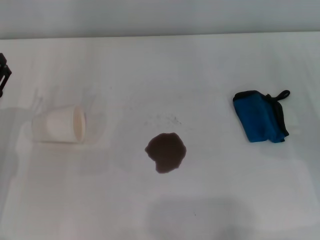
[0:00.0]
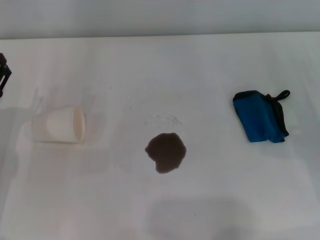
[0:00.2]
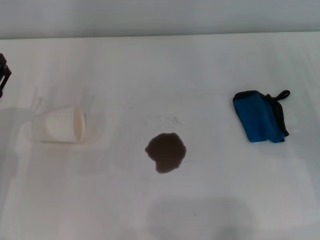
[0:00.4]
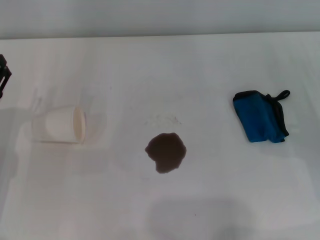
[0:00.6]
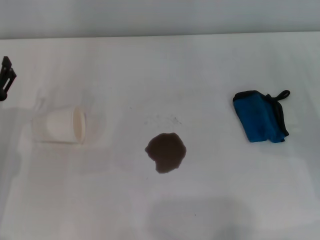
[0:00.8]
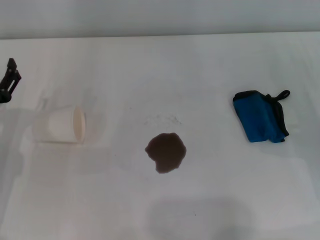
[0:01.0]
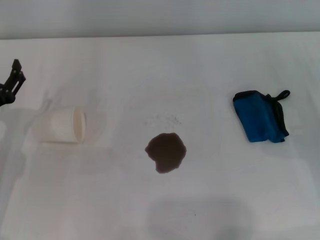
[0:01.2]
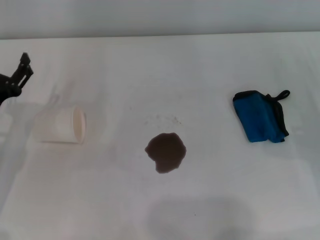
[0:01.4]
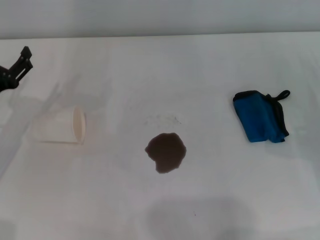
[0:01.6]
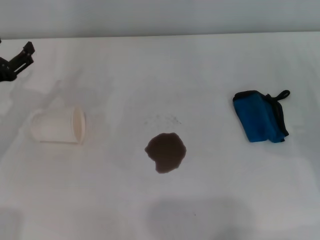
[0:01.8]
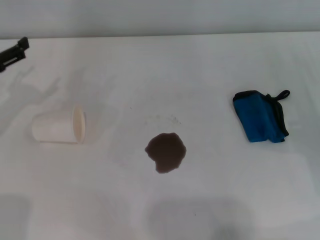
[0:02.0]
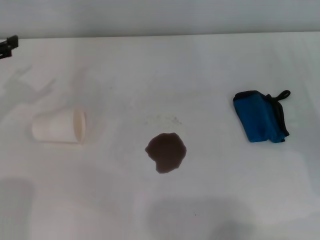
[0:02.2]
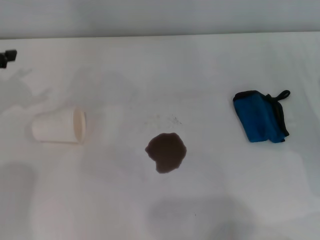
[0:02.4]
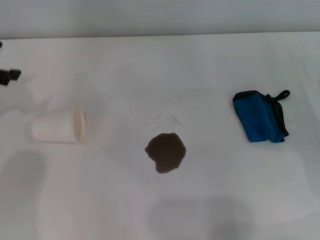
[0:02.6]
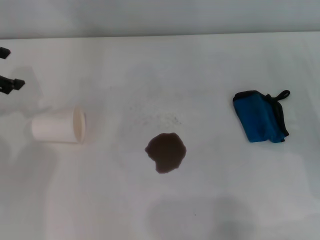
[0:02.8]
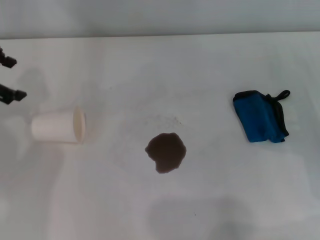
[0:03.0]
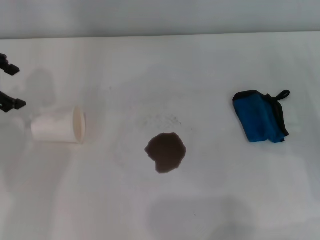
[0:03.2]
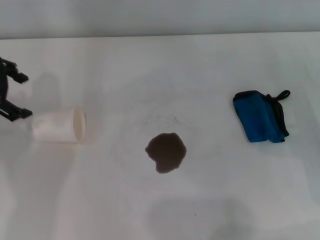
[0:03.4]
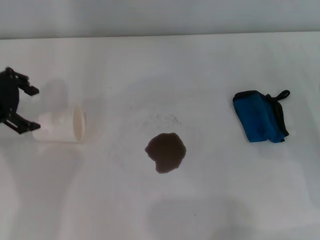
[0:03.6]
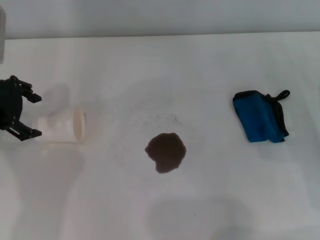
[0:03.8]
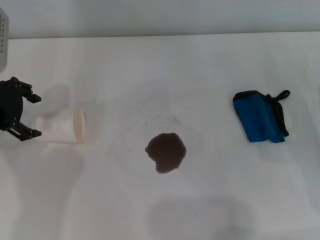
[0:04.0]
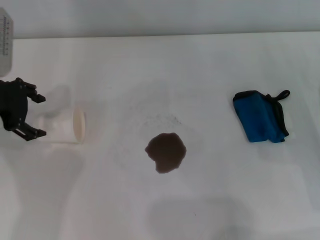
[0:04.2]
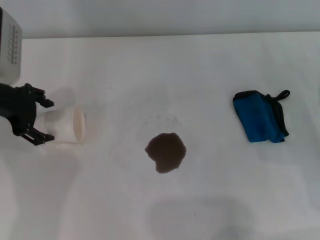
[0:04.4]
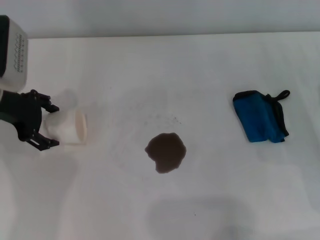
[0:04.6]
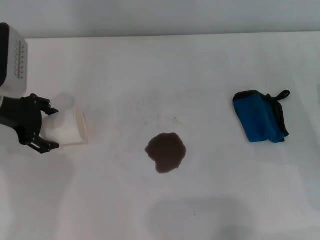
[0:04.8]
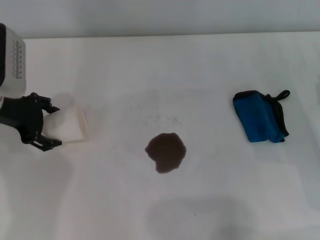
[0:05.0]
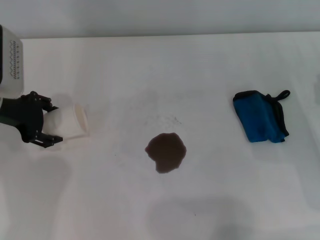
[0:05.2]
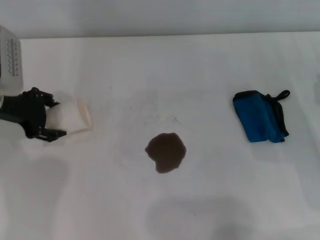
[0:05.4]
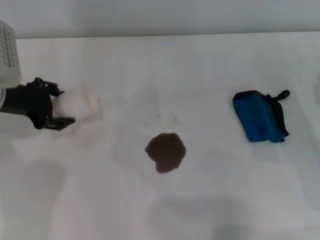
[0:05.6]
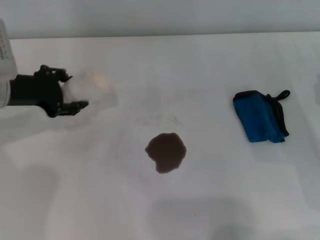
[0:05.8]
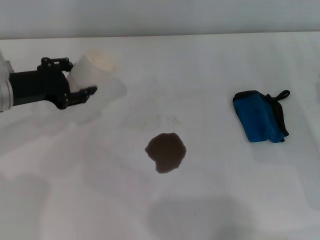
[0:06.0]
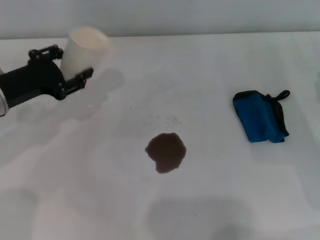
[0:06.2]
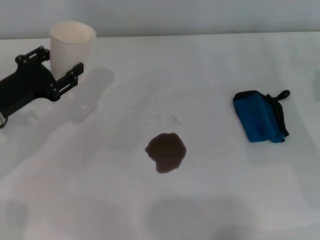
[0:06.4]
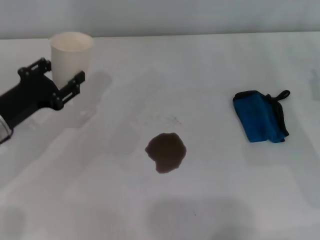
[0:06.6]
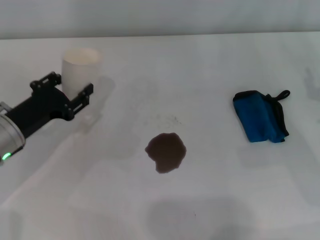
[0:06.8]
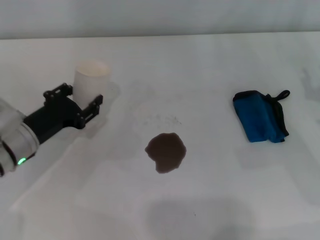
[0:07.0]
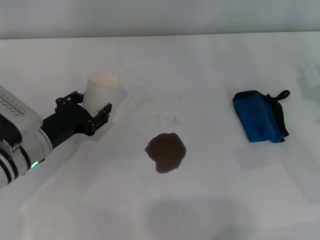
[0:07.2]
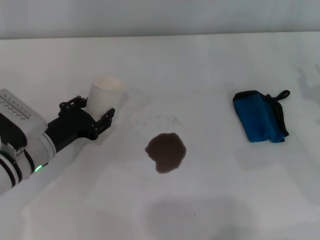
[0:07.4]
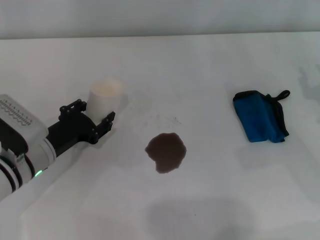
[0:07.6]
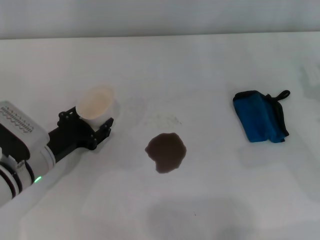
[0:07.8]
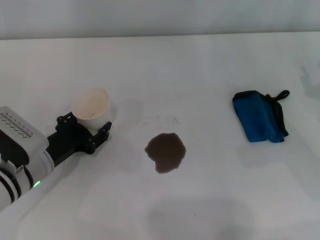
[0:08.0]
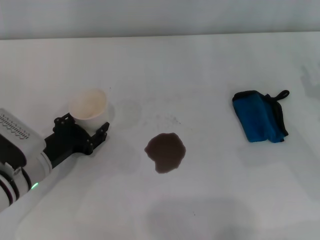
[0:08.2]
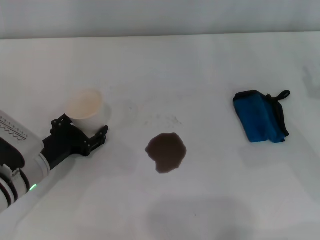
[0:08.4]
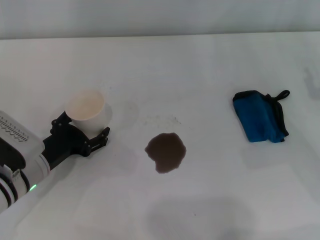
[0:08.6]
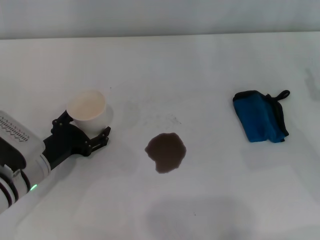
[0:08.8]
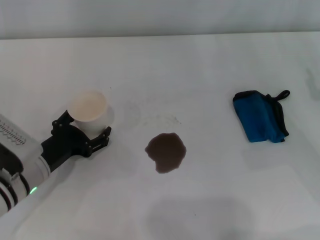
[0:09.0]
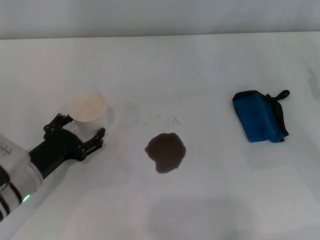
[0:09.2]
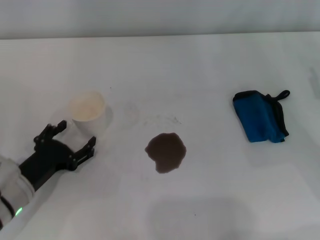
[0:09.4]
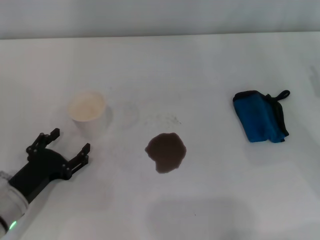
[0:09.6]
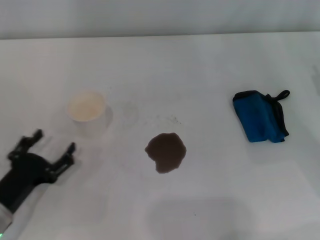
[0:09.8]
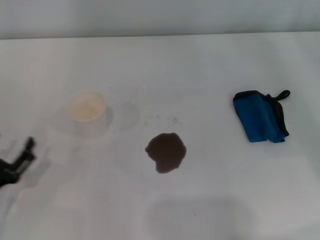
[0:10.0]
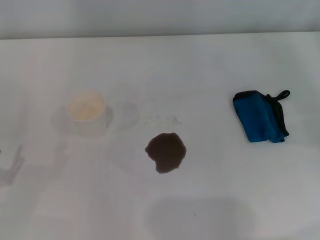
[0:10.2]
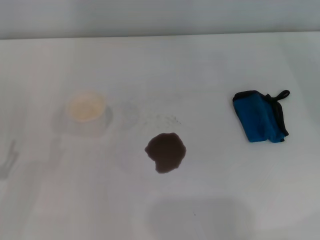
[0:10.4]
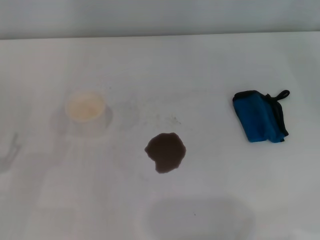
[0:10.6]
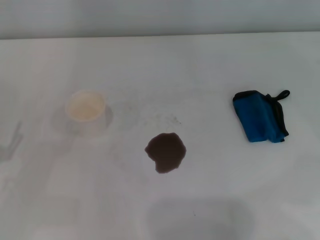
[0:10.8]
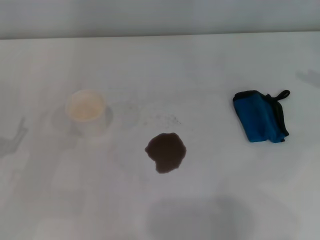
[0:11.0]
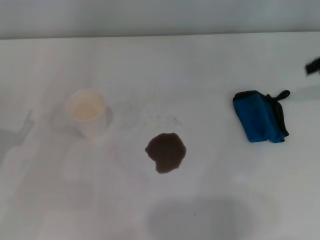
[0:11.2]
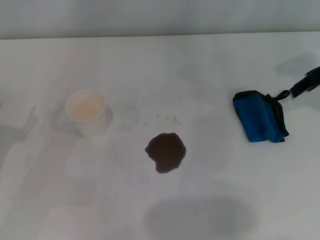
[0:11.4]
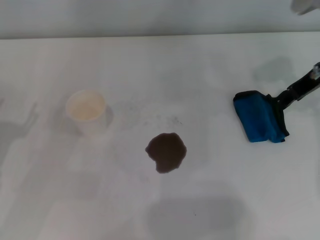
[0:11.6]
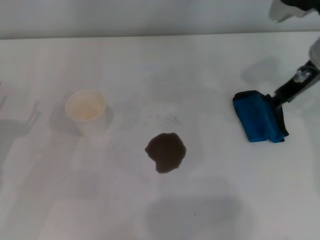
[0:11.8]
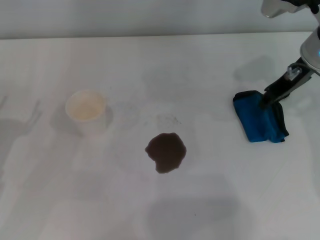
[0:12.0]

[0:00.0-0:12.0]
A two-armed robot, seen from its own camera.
Step, 0:00.0 to 0:05.2: Grasp the paper cup with the left gripper.
Step, 0:05.4 to 0:08.8: Stand the paper cup upright with the left gripper.
0:00.0 to 0:01.6: The grippers move only a little.
0:01.6 to 0:03.0: The left gripper shifts roughly 20 cm upward and forward.
0:03.0 to 0:04.4: The left gripper heads downward and to the right, covering roughly 10 cm.
0:04.4 to 0:06.0: The left gripper closes its fingers.
0:06.0 to 0:07.6: The left gripper travels downward and backward by roughly 10 cm.
0:07.6 to 0:09.0: The left gripper opens up.
0:09.0 to 0:10.4: The left gripper is displaced to the left and backward by some 15 cm.
0:10.4 to 0:12.0: The right gripper shifts approximately 25 cm to the left and forward.

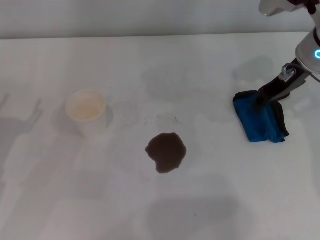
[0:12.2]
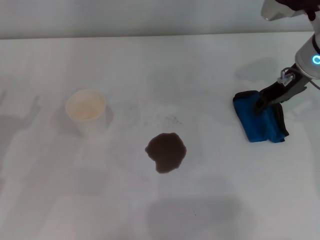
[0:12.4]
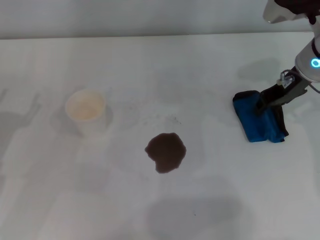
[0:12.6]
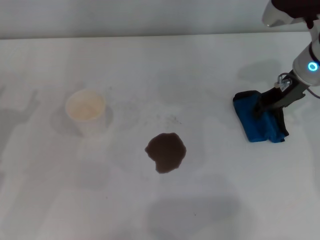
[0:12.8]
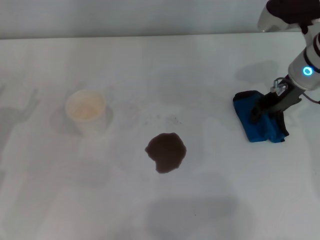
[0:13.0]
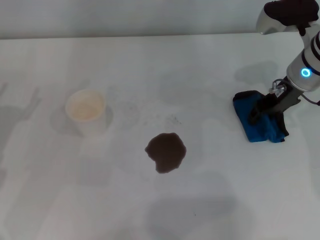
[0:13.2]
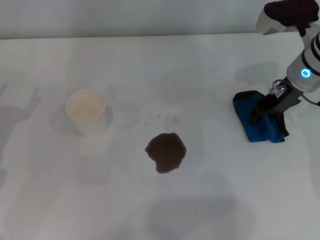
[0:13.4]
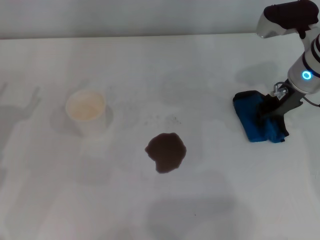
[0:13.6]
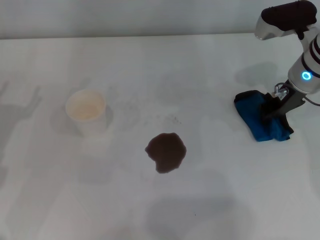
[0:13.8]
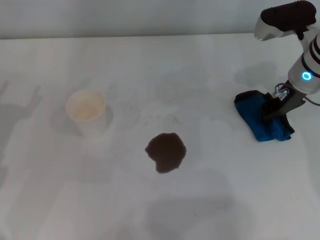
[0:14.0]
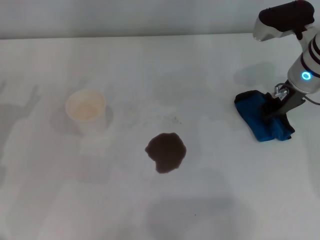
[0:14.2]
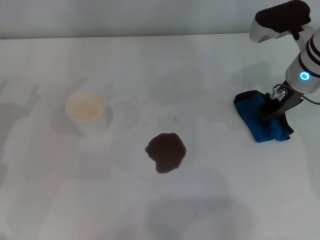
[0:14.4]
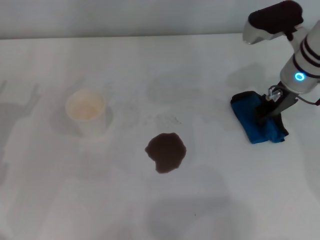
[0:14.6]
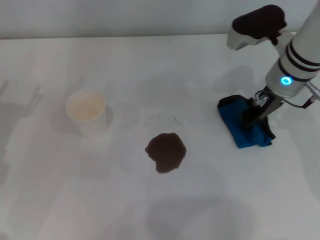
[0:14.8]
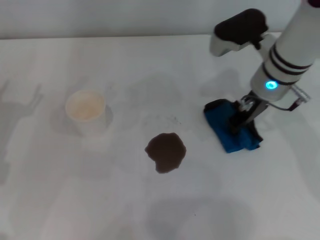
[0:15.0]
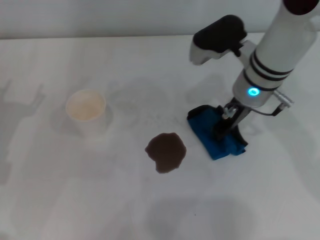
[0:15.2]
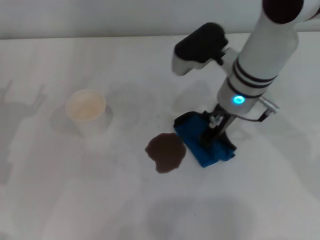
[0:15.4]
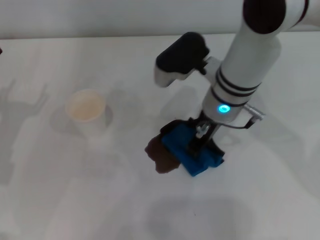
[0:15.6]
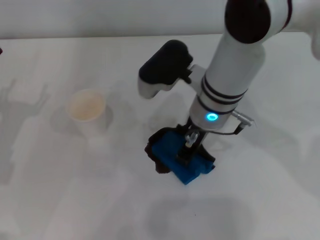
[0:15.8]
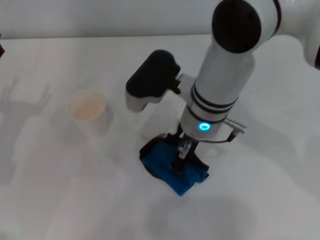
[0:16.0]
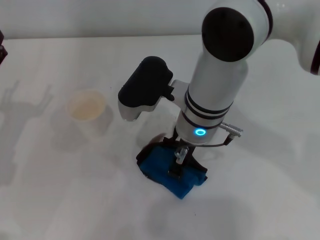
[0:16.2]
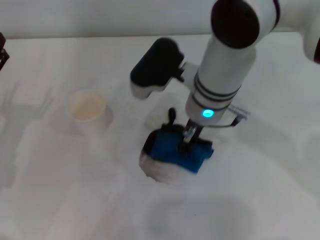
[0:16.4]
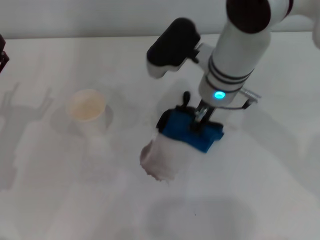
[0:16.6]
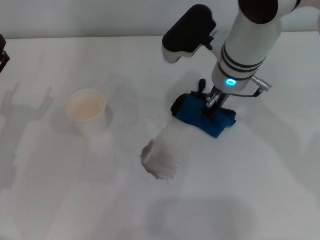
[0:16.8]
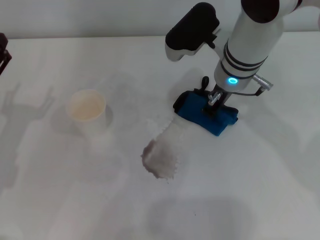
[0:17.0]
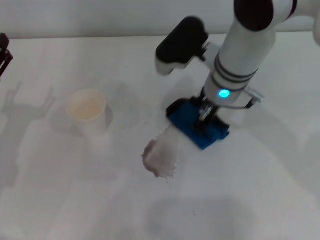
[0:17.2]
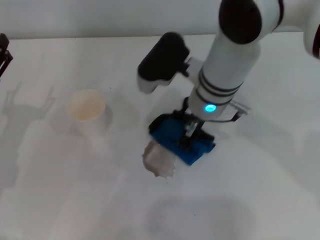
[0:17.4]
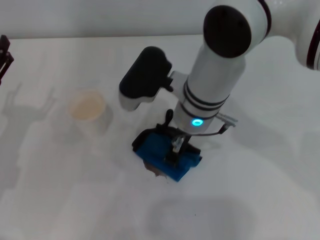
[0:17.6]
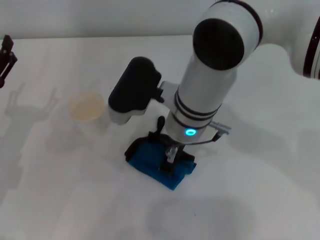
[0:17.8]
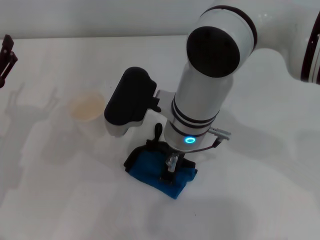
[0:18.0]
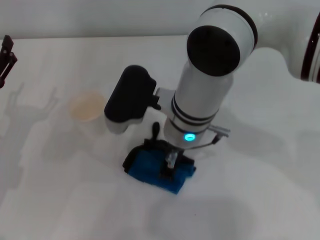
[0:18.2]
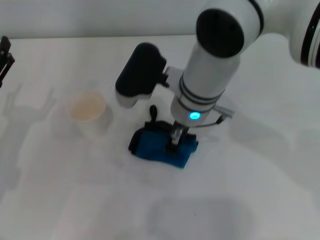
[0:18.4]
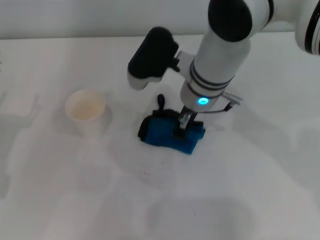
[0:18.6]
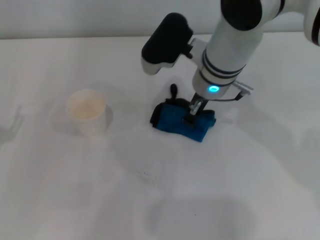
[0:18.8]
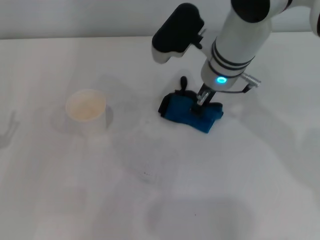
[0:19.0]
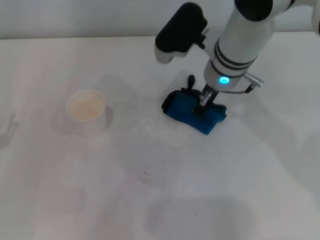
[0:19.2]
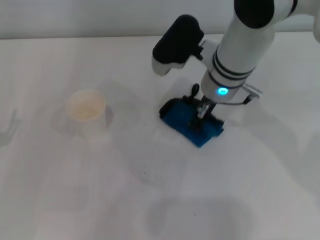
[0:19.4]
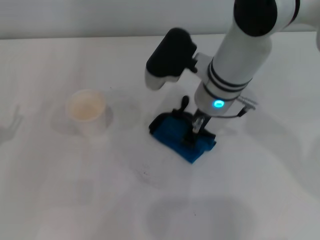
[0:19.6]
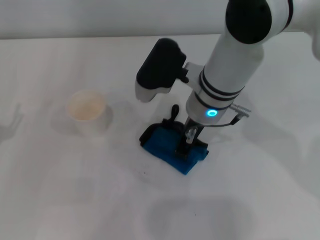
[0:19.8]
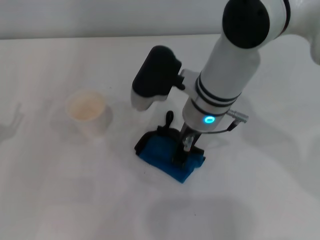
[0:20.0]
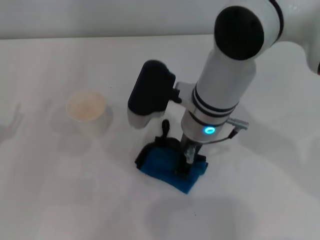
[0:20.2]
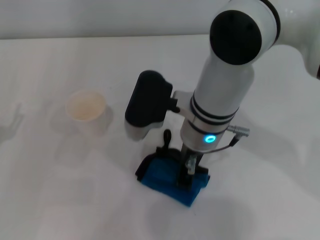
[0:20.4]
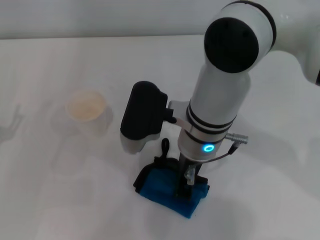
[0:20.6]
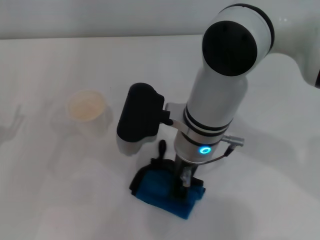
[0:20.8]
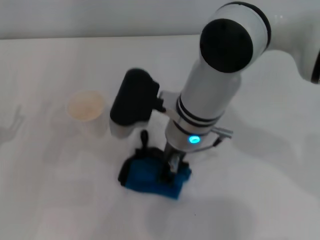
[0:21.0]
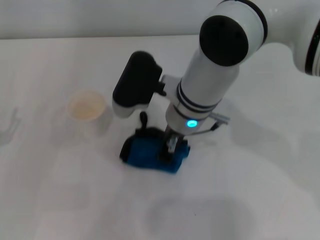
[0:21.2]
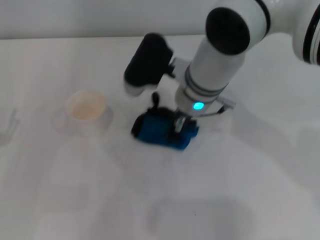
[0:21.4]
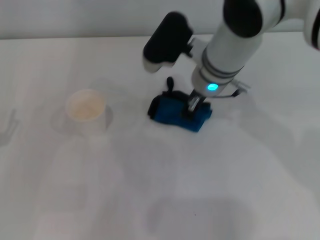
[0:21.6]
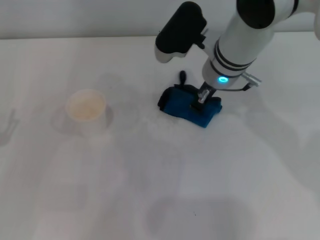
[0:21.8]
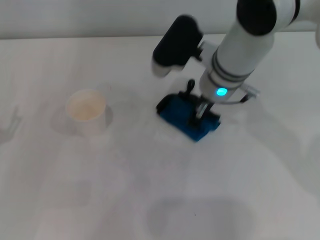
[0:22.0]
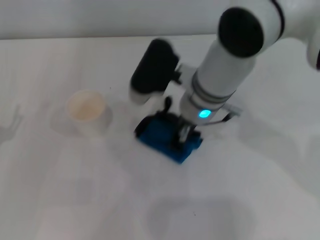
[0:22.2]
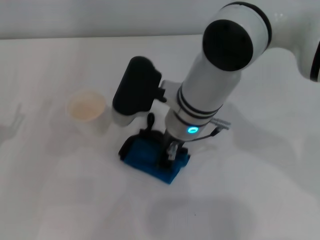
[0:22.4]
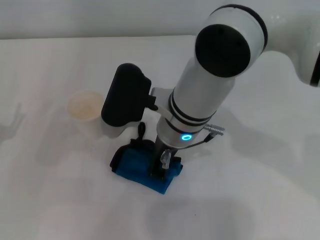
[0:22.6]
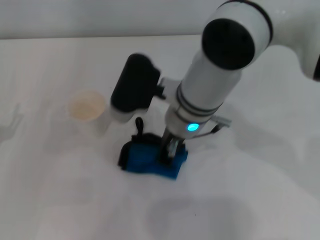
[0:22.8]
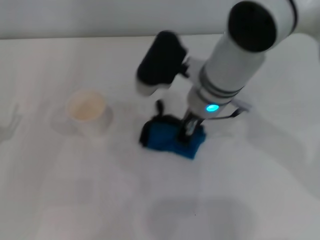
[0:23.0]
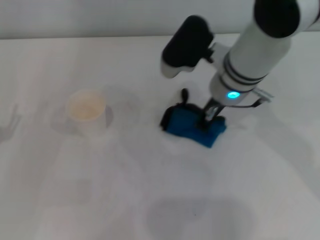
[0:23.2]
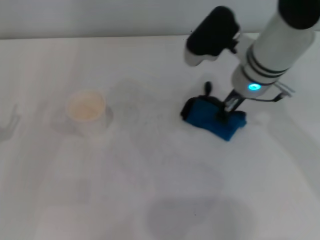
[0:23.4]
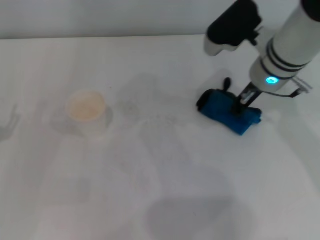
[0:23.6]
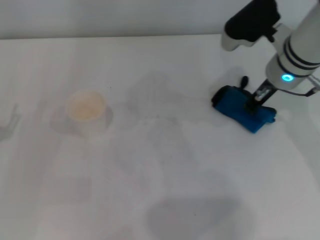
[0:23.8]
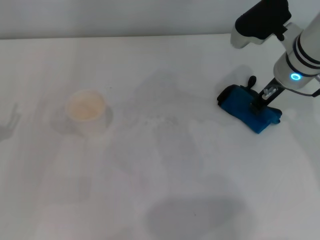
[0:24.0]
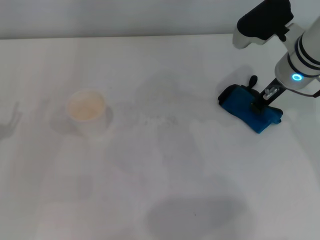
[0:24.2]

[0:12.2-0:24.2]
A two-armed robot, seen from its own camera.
0:12.2 to 0:13.8: The right gripper closes up.
0:13.8 to 0:15.2: The right gripper moves to the left, roughly 10 cm, and closes its fingers.
0:15.2 to 0:16.6: The right gripper travels to the left by some 5 cm.
0:16.6 to 0:18.2: The right gripper moves to the left and backward, about 10 cm.
0:18.2 to 0:19.8: The left gripper moves some 5 cm.
0:19.8 to 0:21.2: The grippers make only small movements.
0:21.2 to 0:22.6: The right gripper moves approximately 5 cm forward and comes back.
0:22.6 to 0:24.2: The right gripper shifts roughly 20 cm to the right.
